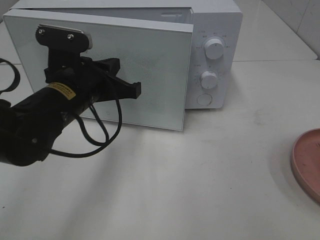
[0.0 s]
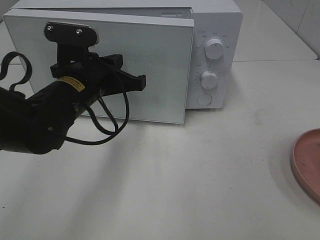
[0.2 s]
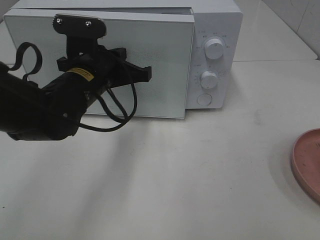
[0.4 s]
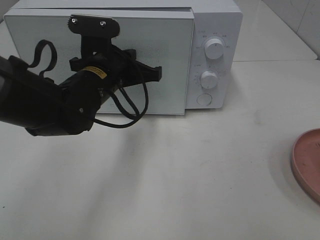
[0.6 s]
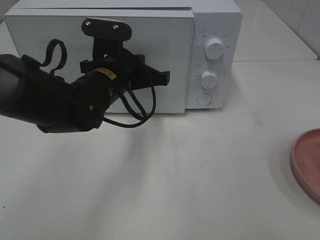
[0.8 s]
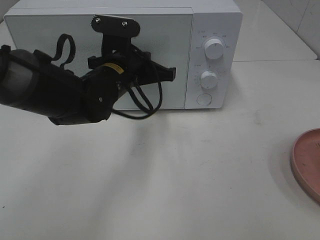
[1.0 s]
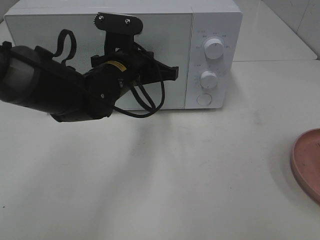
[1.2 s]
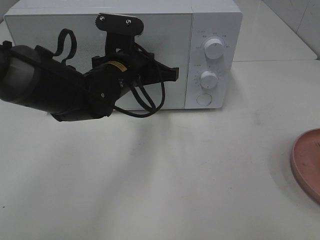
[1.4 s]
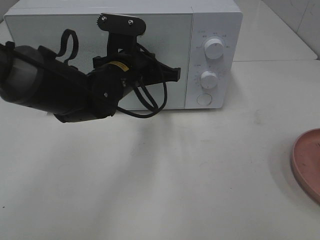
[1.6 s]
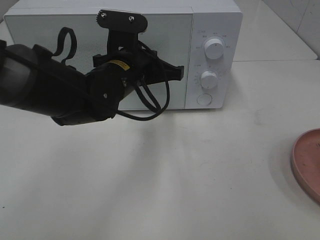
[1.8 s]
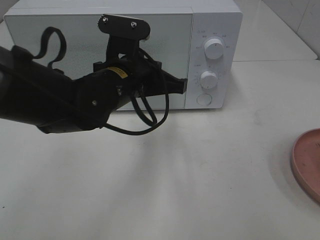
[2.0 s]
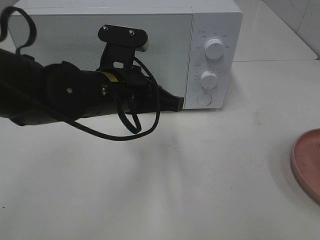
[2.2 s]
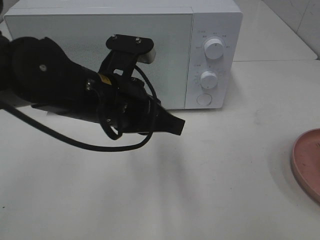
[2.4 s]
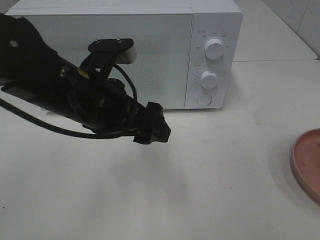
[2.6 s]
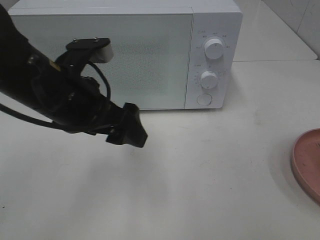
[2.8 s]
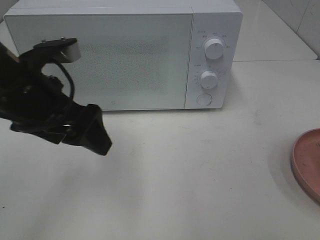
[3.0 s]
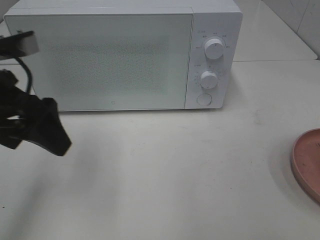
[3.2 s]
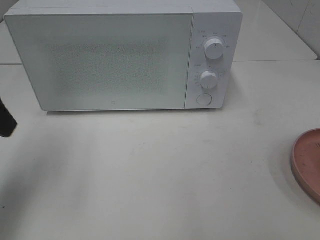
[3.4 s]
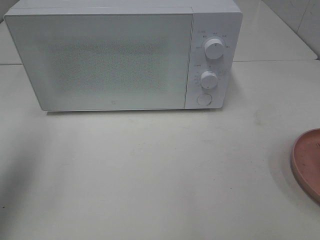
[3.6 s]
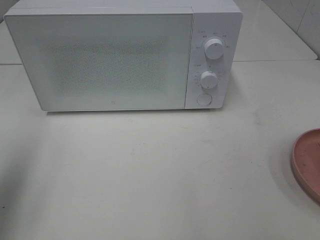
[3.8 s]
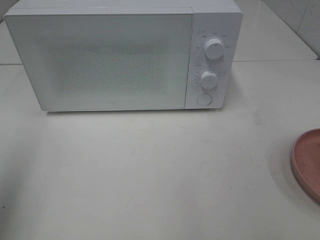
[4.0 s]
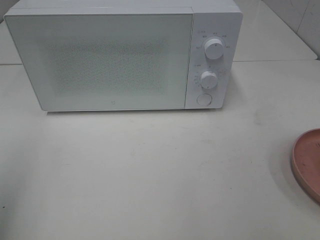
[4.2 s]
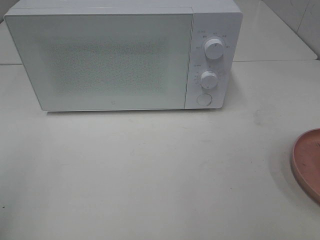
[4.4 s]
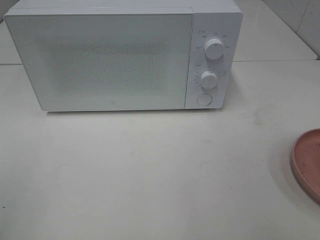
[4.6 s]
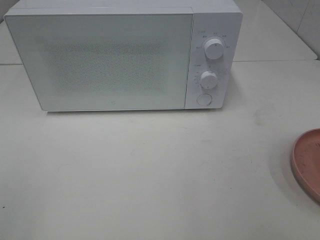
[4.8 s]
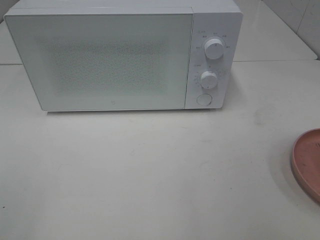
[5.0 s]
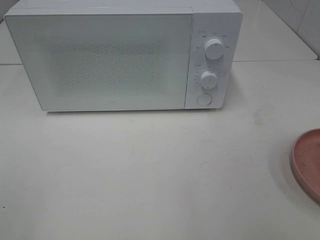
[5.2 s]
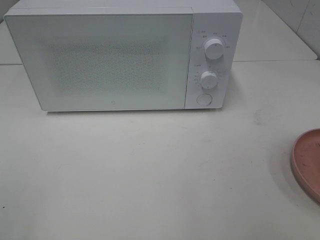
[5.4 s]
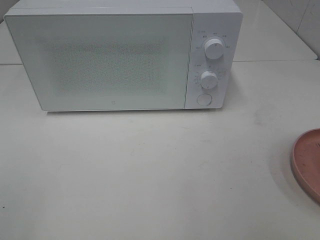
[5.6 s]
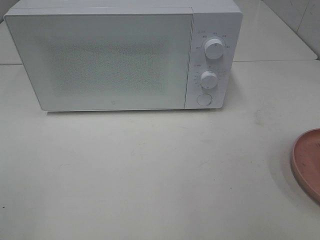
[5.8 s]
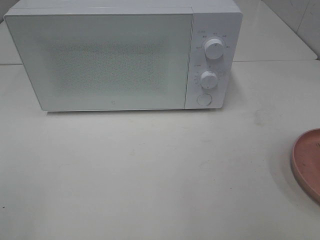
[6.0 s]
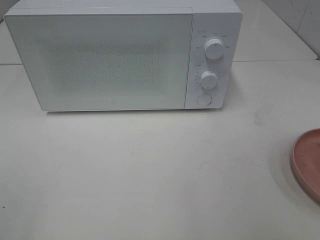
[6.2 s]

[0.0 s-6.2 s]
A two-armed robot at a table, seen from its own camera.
Task of the whole recording: Heat the burger.
Step, 0.0 to 2.2 s: Left hand: close the microwave door.
0.0 to 1.6 s: The left gripper is displaced to the right and forward by approximately 10 cm.
1.6 to 3.2 s: The left gripper shifts approximately 20 cm to the left, backward and upward, and opens.
3.2 to 4.6 s: The left gripper shifts some 20 cm backward and to the left.

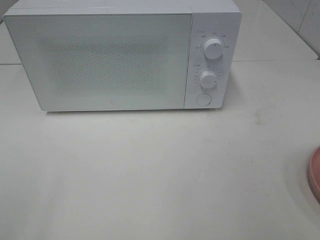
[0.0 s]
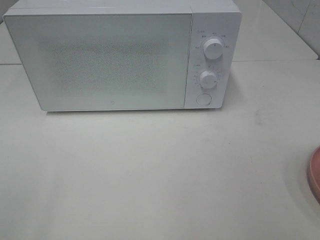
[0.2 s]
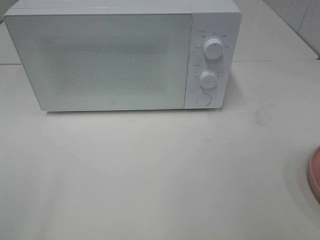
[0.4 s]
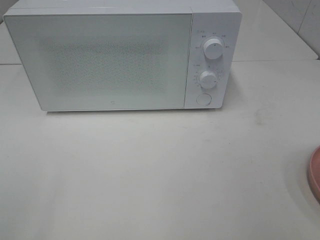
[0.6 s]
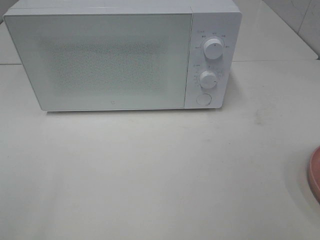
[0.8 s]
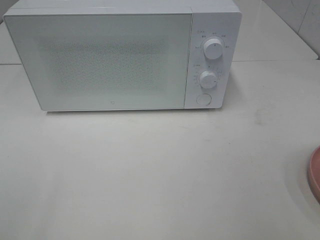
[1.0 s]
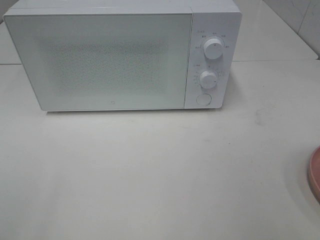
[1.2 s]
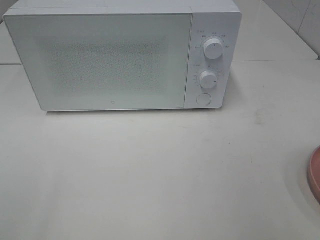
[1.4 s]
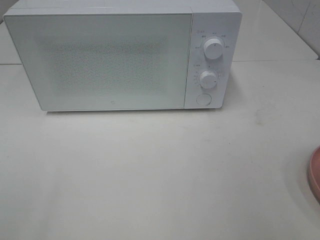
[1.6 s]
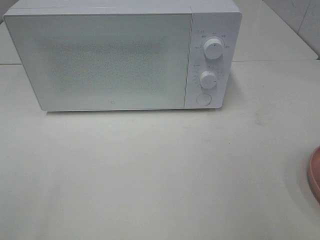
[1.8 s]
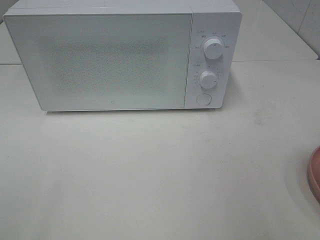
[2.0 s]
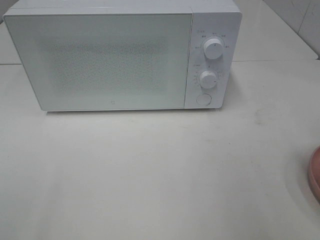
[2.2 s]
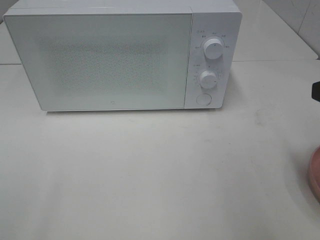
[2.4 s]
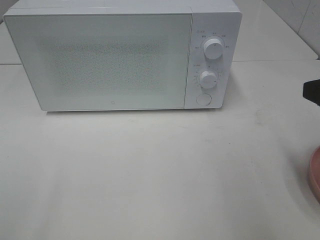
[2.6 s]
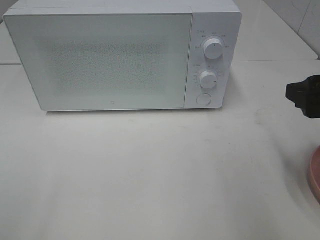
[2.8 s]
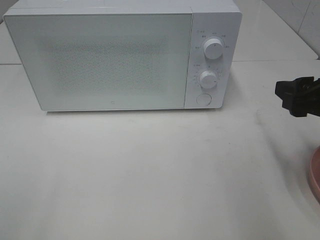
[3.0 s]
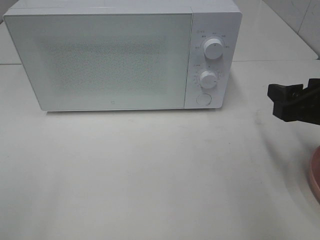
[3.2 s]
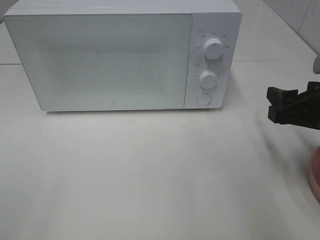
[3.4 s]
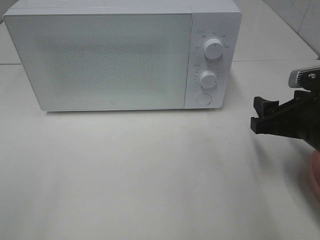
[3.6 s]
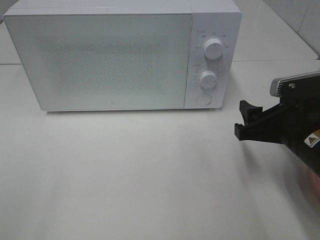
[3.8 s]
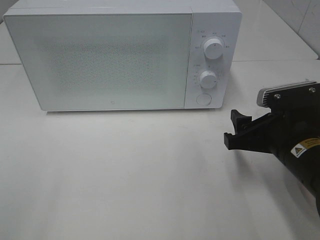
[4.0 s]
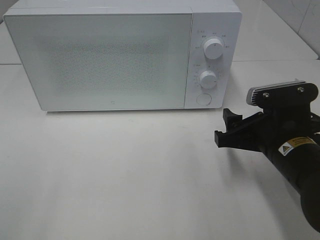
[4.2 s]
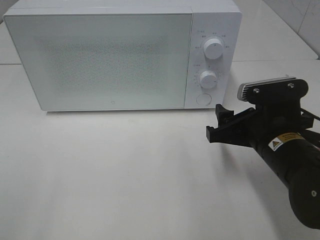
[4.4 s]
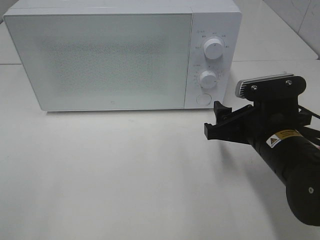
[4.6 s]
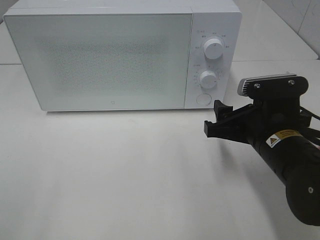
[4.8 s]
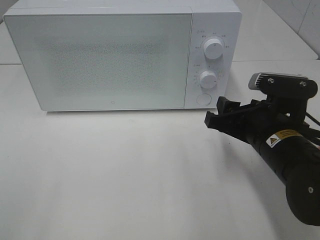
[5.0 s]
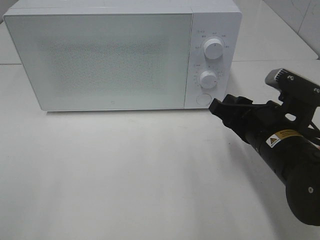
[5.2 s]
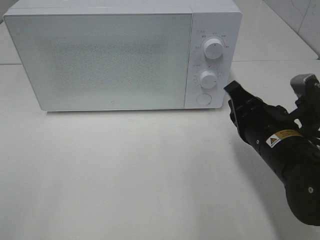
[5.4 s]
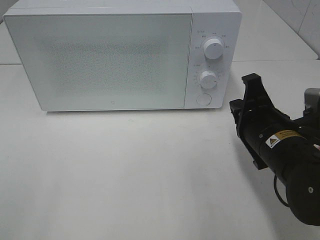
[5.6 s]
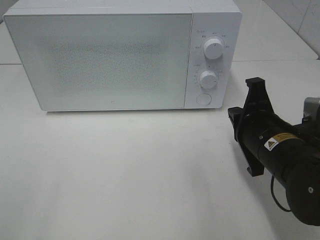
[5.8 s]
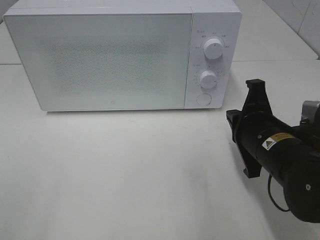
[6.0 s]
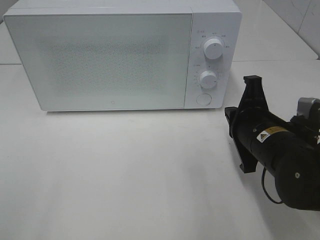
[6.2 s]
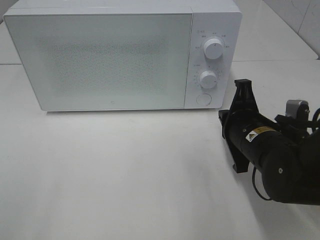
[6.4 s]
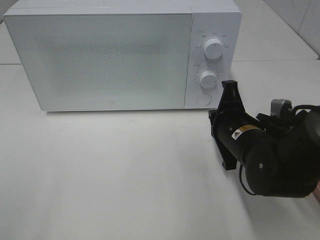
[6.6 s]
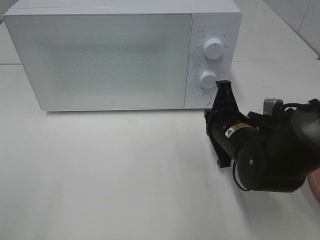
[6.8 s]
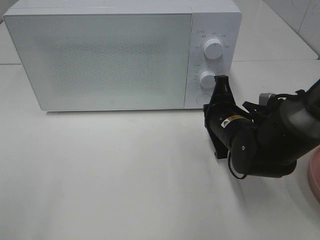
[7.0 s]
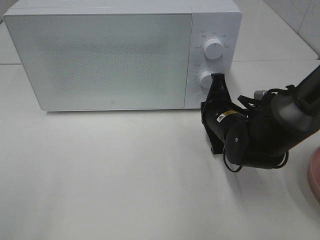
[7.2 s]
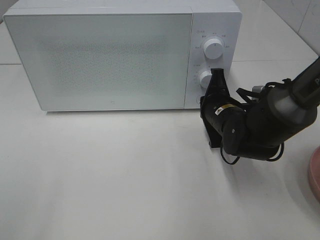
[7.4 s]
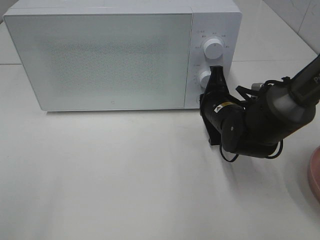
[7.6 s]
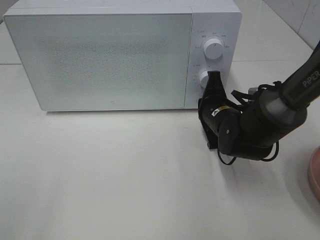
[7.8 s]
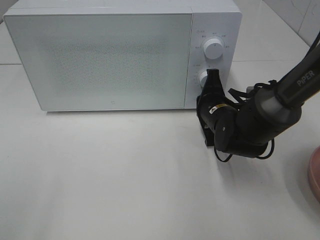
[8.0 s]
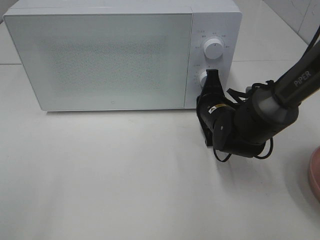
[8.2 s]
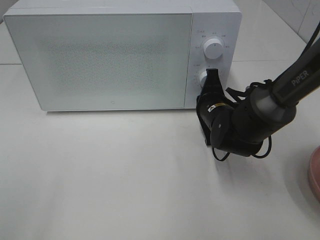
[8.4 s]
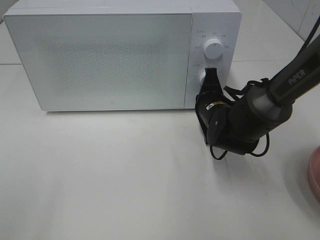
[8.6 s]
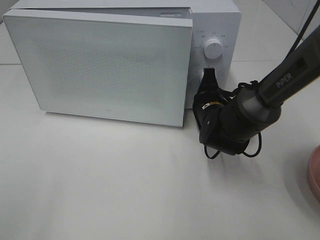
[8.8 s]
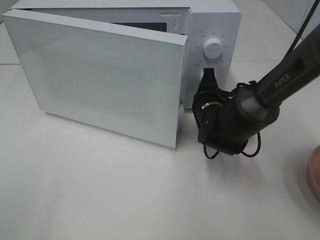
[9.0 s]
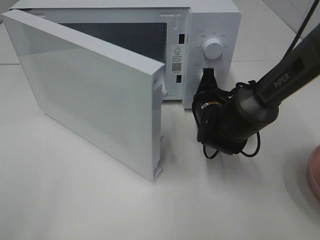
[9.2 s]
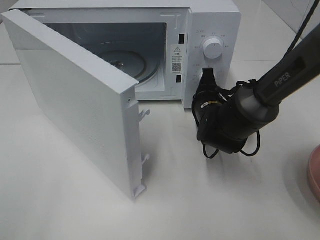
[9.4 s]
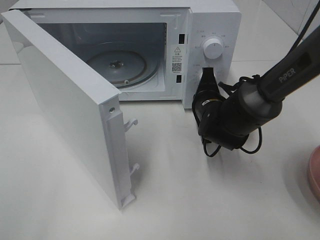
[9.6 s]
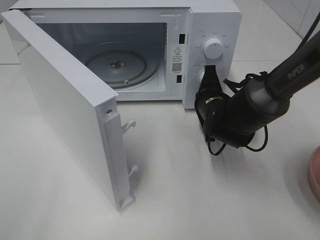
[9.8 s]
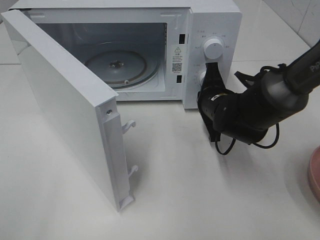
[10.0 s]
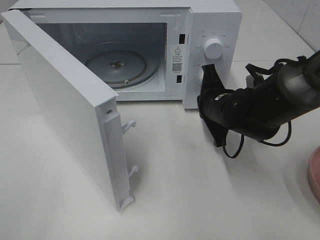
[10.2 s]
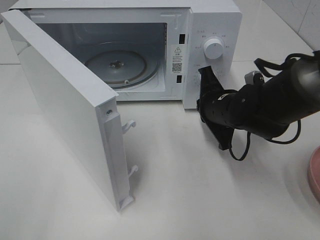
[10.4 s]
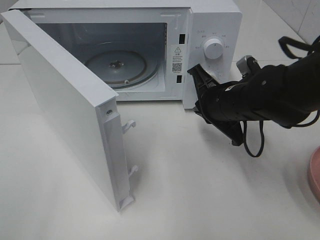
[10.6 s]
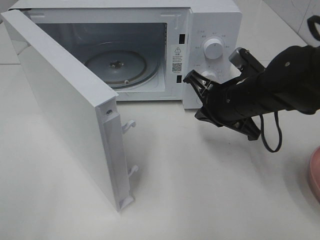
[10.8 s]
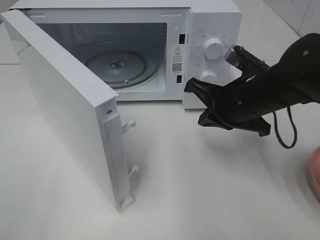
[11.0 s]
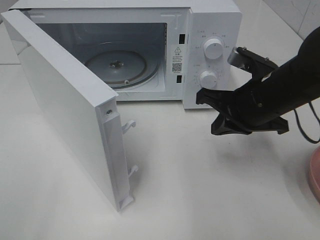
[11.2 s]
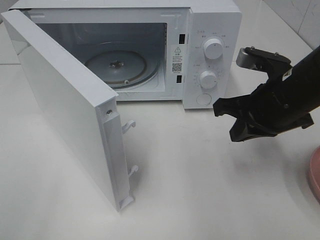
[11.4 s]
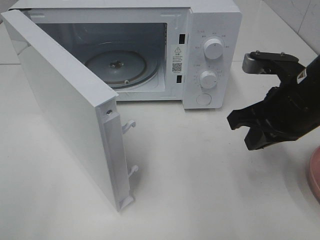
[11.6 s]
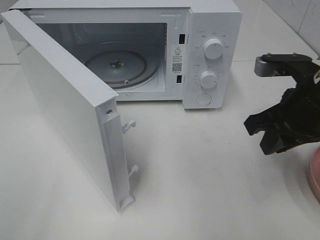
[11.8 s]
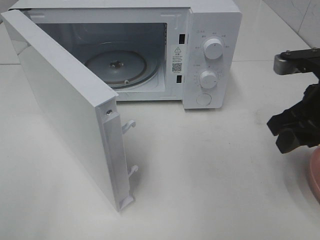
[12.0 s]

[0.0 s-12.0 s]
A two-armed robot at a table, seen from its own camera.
Task of the whole recording: Heat the burger.
Step, 0.0 to 10.2 s: Right hand: press the switch.
1.6 to 3.0 s: The right gripper shifts approximately 15 cm forward and downward.
3.0 to 4.4 s: The right gripper moves to the left and downward, approximately 10 cm.
4.4 to 6.0 s: The right gripper closes up.
6.0 to 7.6 s: The right gripper shifts approximately 10 cm forward.
7.6 to 9.0 s: There are only small adjustments of the grippers.
9.0 to 10.4 s: The right gripper shifts by roughly 5 cm.
10.4 to 12.0 s: The right gripper is displaced upward, to the right and backward by some 15 cm, and opens its fingers.

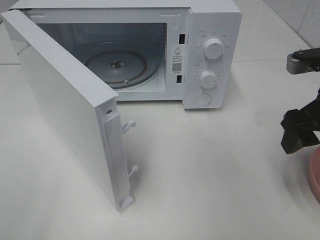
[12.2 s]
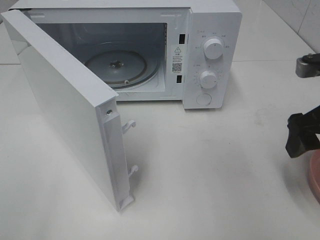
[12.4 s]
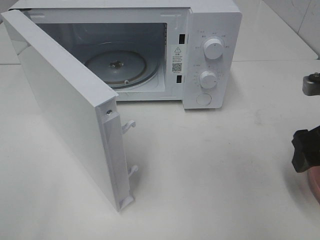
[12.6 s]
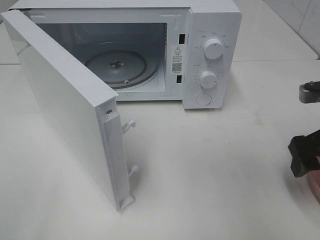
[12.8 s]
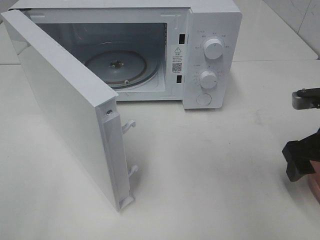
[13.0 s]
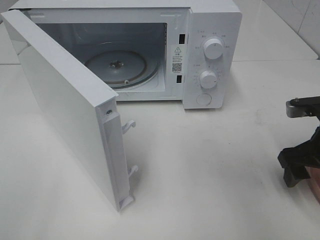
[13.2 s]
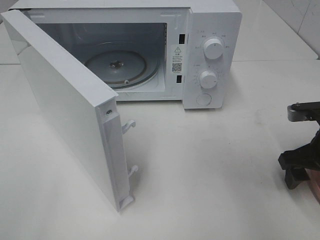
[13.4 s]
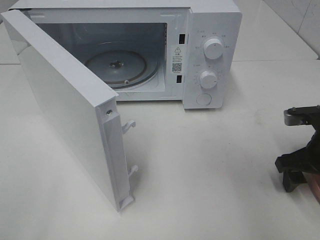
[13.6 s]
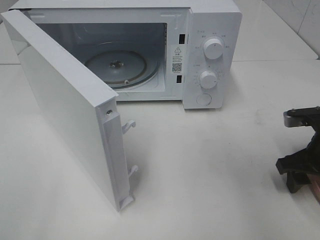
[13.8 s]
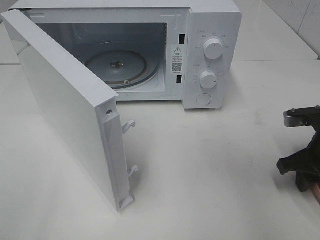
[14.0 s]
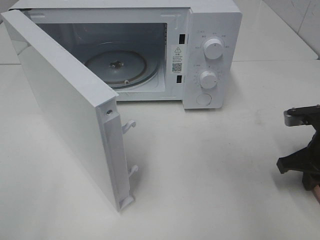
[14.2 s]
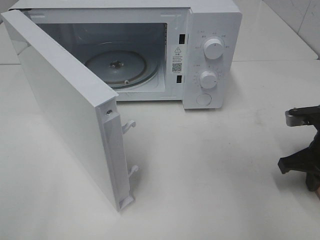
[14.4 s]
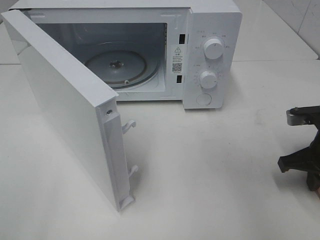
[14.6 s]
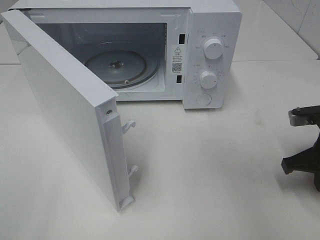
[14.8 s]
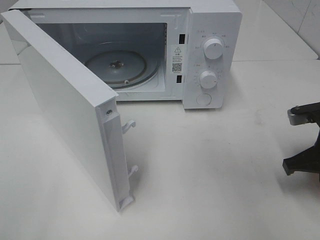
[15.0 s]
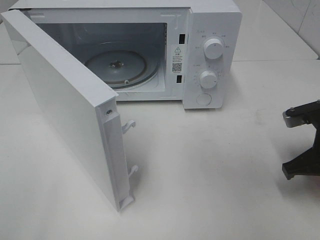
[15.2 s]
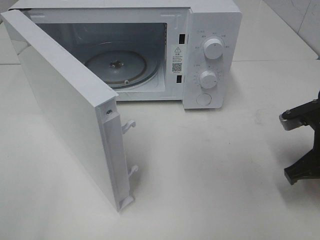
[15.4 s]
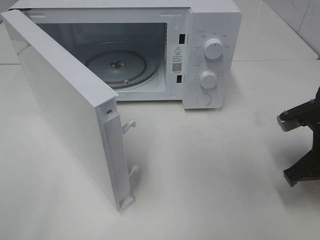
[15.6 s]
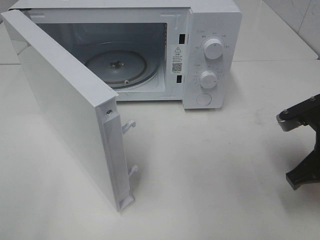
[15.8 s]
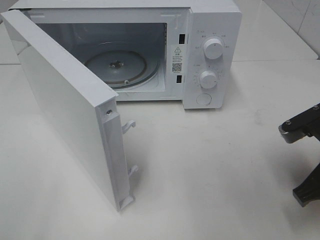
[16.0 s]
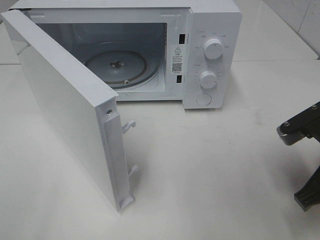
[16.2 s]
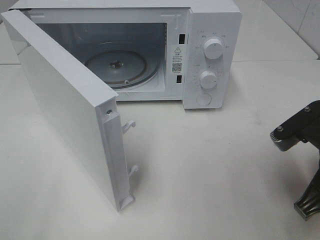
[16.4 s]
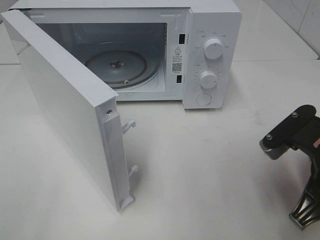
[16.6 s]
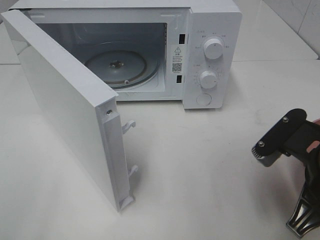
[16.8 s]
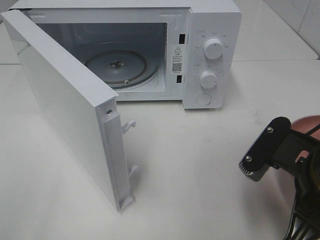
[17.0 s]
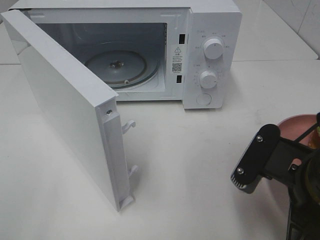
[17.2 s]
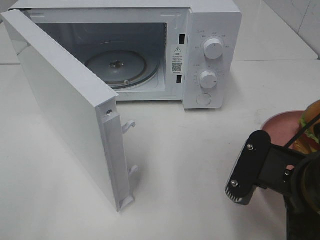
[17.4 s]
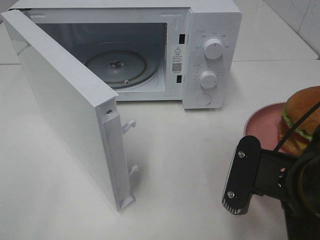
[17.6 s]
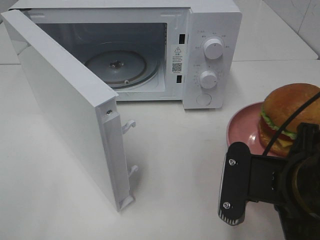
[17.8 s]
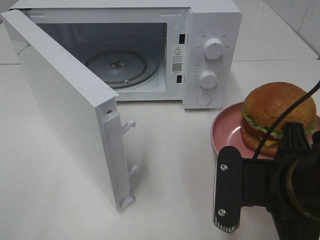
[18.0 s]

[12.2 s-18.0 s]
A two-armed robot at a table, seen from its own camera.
Task of the whole recording: Heat the burger.
Step, 12.2 to 15.0 s: Right hand: grab the plate with the hamburger.
12.2 to 13.6 s: The right gripper is displaced downward by some 10 cm.
13.6 to 15.0 s: The right gripper closes.
15.0 to 16.6 s: The right gripper travels backward and to the left by some 10 cm.
16.6 to 18.0 s: The right gripper travels to the left by approximately 5 cm.
